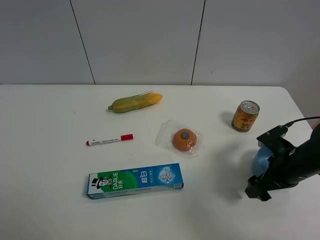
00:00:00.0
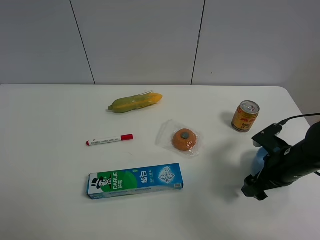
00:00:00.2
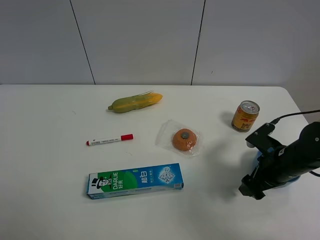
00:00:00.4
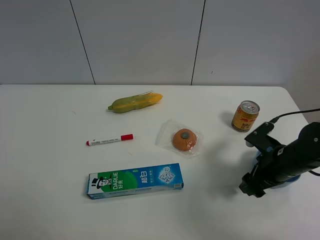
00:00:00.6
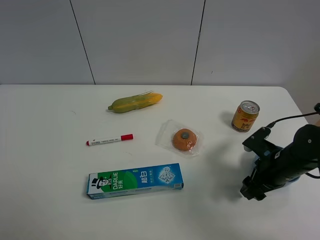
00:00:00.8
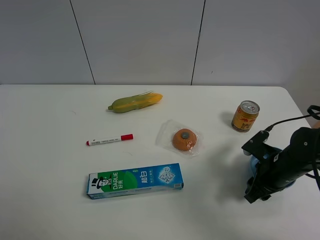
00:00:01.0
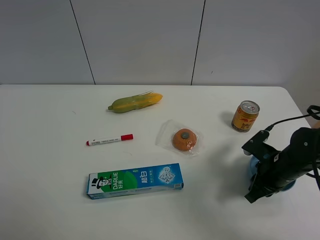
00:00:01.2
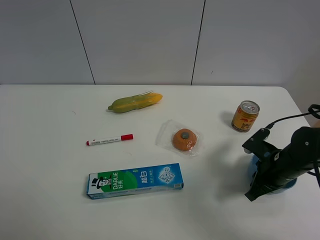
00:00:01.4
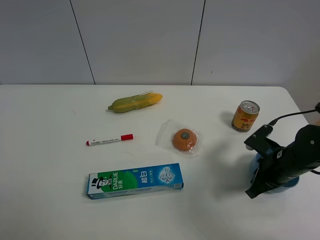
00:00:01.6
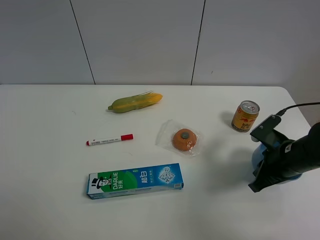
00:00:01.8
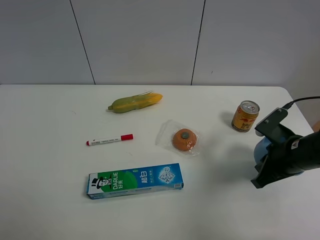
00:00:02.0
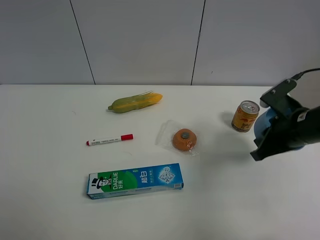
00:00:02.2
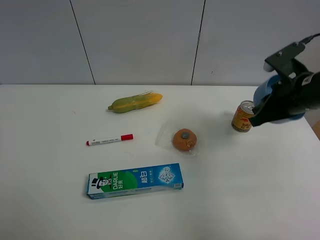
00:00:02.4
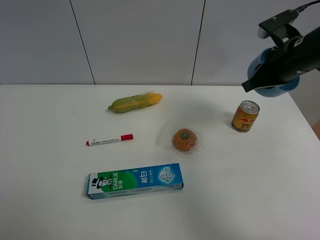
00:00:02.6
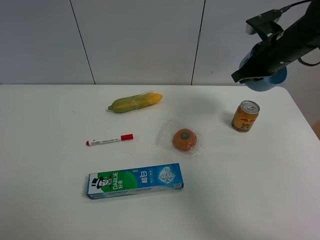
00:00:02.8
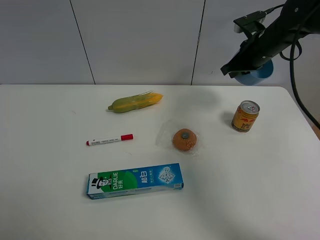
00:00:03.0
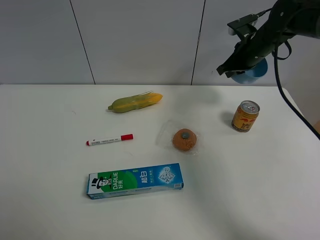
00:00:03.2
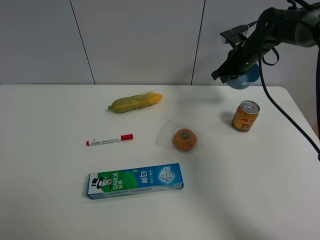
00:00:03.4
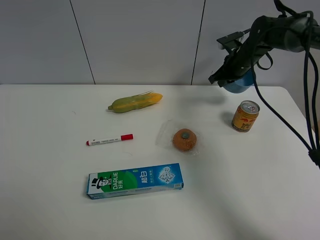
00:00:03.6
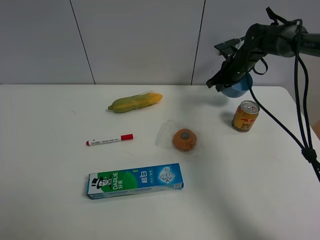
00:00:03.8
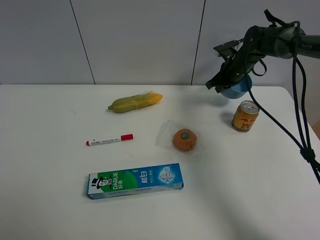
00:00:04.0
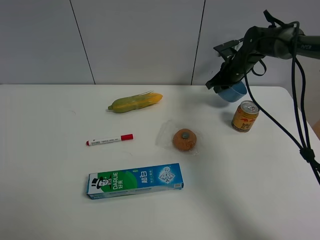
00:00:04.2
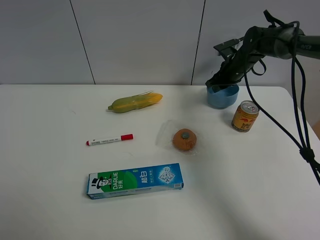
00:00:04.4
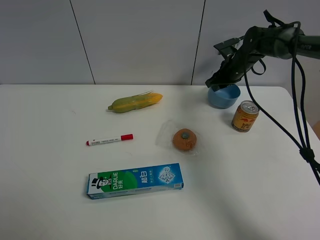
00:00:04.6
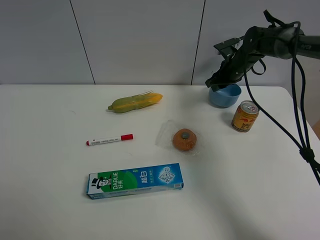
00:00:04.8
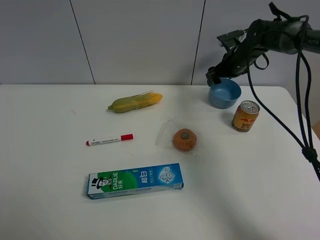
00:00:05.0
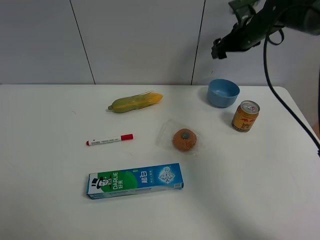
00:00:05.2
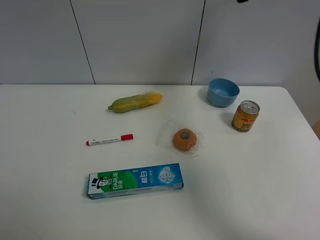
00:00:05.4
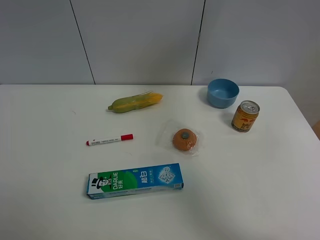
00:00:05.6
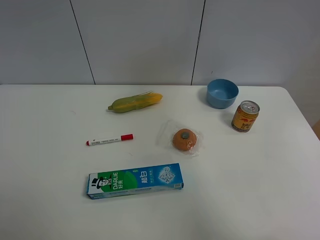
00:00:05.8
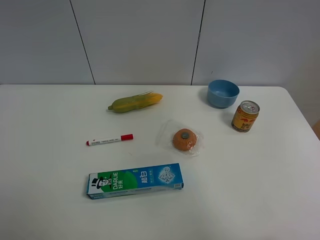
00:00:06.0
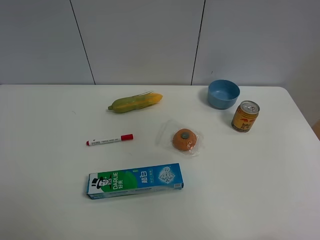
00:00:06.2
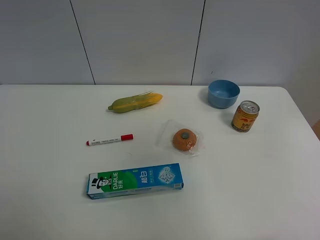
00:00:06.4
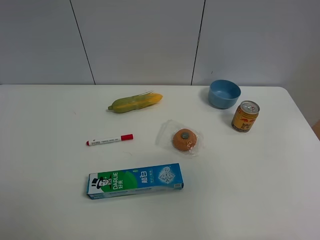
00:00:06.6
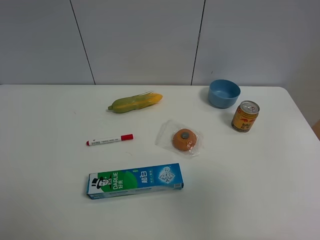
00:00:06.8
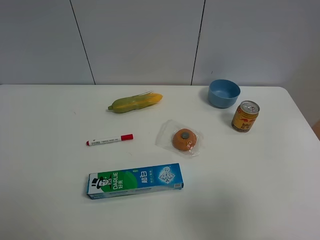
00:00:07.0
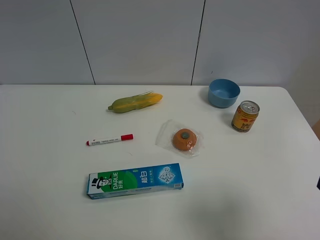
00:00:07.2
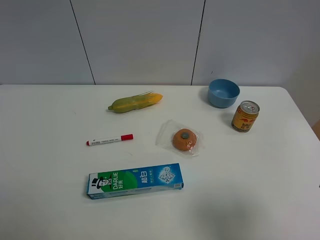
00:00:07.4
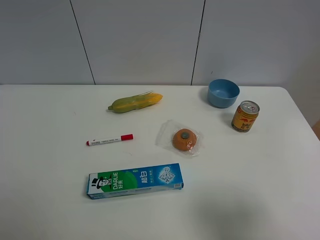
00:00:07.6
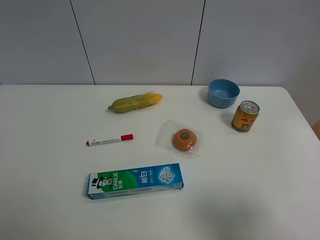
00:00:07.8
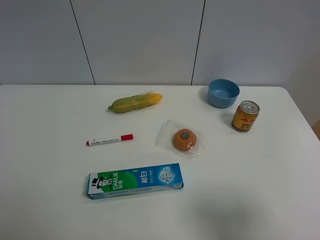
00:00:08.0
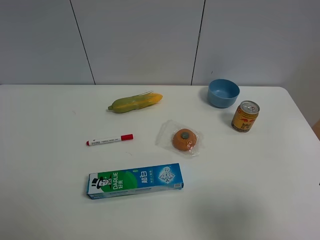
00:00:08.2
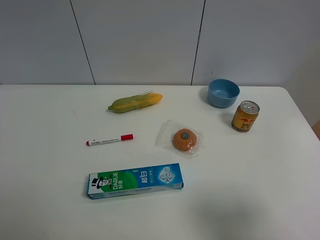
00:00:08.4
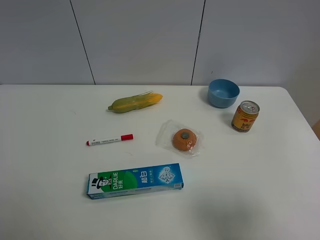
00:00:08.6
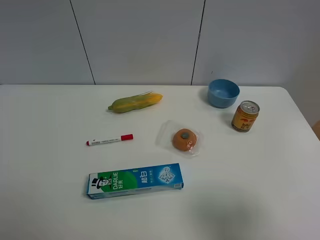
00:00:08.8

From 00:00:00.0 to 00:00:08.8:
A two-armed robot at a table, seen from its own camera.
Task of the whole recording: the gripper move the object.
Step, from 00:00:01.4 to 00:00:04.4: Place the blue bowl on the table with the right gripper.
From 00:00:00.0 to 00:00:01.4: The right gripper closes up.
From 00:00:01.4 to 00:00:03.0: The right gripper is displaced forward and upward by about 25 cm.
From 00:00:03.0 to 00:00:04.4: The right gripper travels downward and forward by some 10 cm.
From 00:00:04.4 to 00:00:05.8: The right gripper shifts about 40 cm upward and backward, and opens up.
From 00:00:05.8 to 00:00:07.4: The right gripper heads downward and backward, covering approximately 40 cm.
From 00:00:07.4 to 00:00:08.8: Neither gripper changes place.

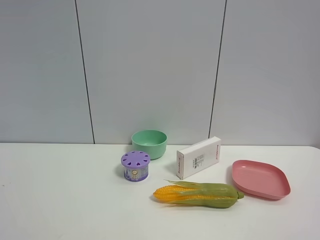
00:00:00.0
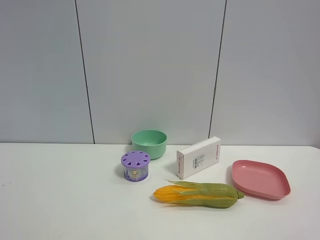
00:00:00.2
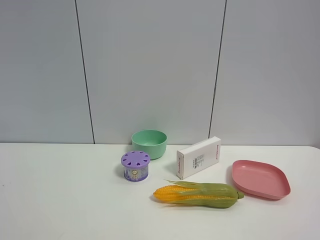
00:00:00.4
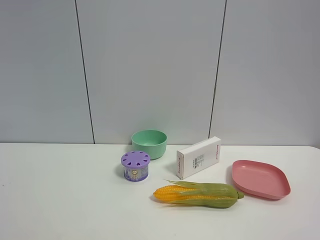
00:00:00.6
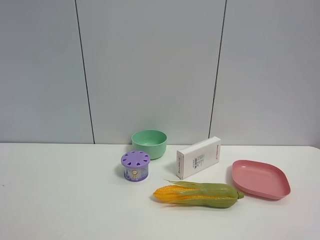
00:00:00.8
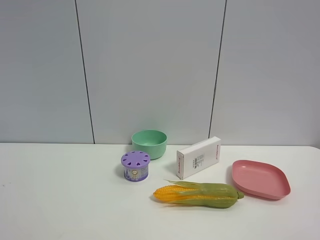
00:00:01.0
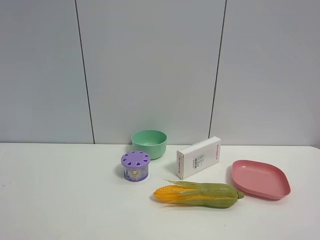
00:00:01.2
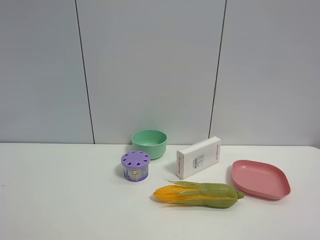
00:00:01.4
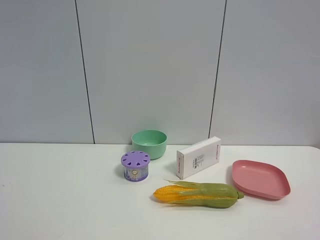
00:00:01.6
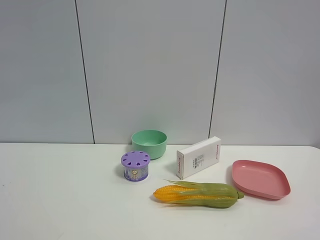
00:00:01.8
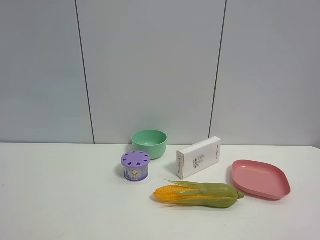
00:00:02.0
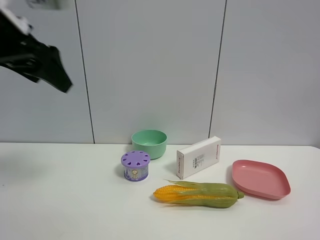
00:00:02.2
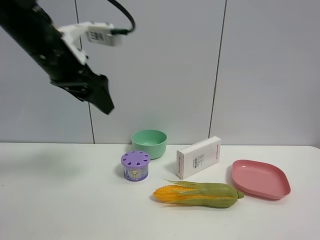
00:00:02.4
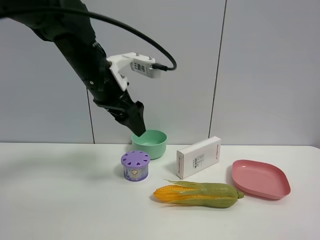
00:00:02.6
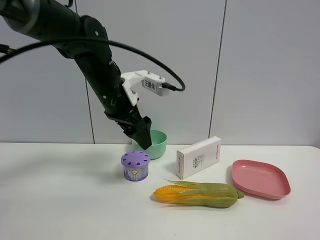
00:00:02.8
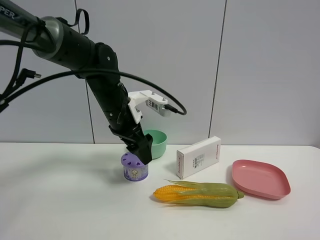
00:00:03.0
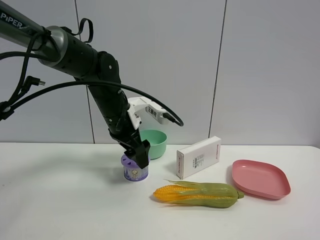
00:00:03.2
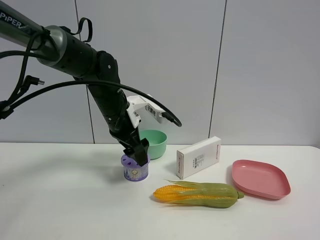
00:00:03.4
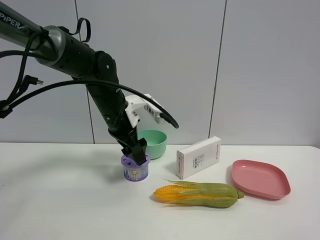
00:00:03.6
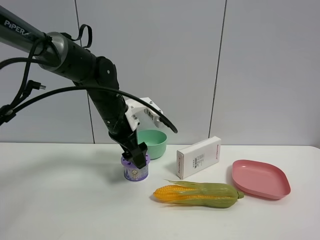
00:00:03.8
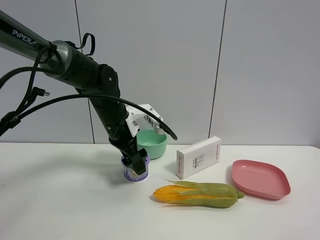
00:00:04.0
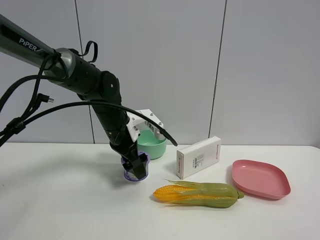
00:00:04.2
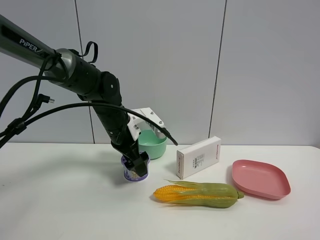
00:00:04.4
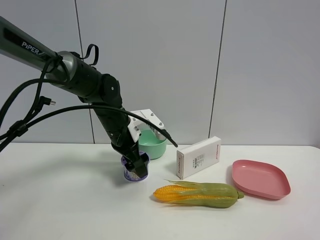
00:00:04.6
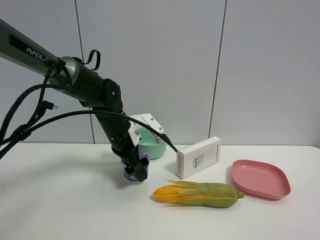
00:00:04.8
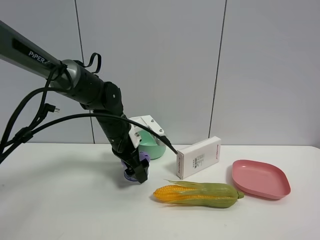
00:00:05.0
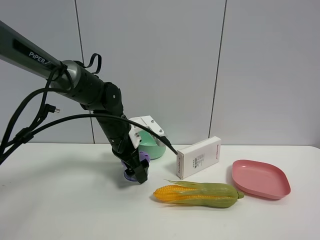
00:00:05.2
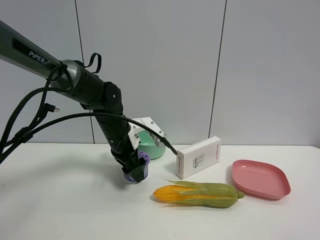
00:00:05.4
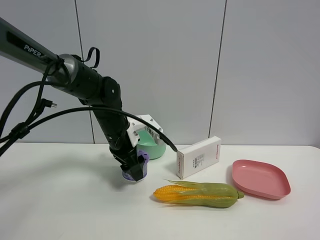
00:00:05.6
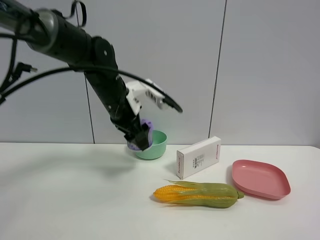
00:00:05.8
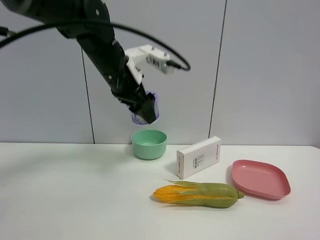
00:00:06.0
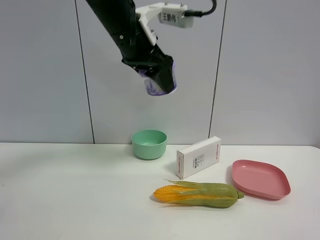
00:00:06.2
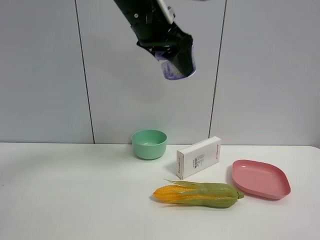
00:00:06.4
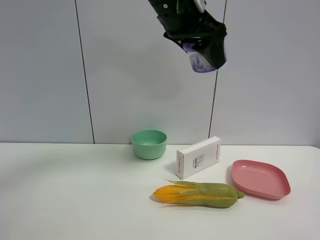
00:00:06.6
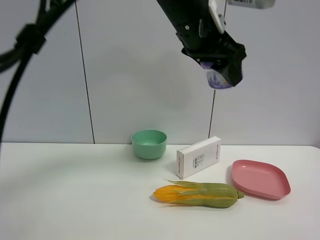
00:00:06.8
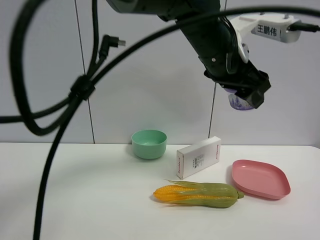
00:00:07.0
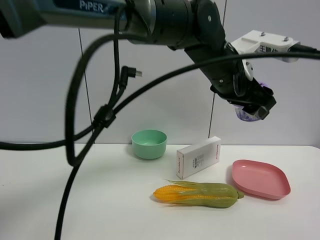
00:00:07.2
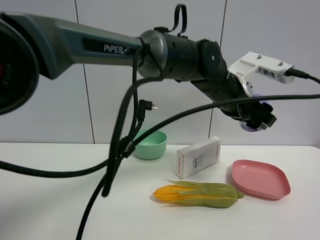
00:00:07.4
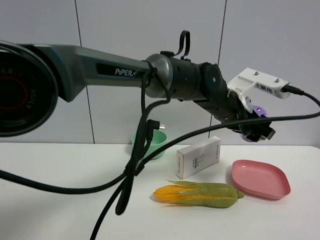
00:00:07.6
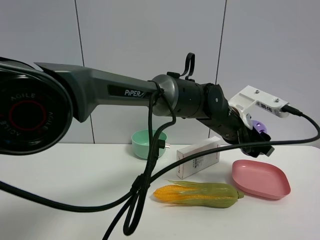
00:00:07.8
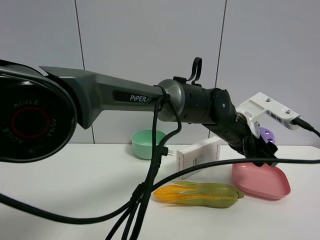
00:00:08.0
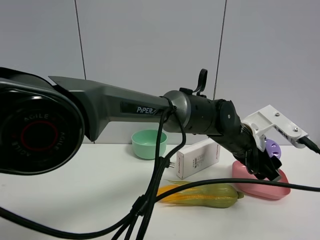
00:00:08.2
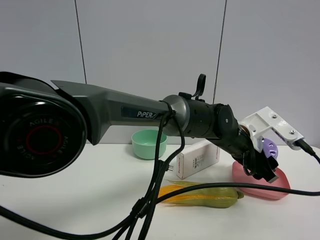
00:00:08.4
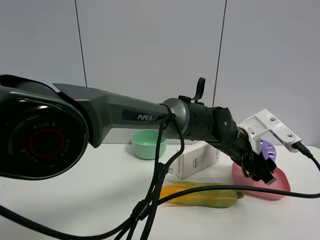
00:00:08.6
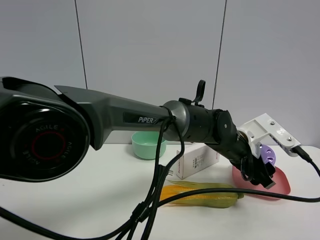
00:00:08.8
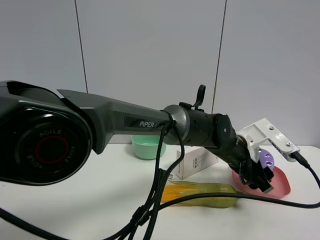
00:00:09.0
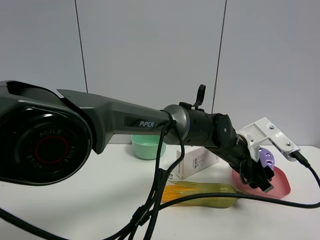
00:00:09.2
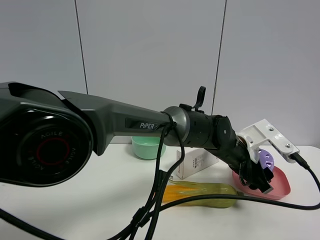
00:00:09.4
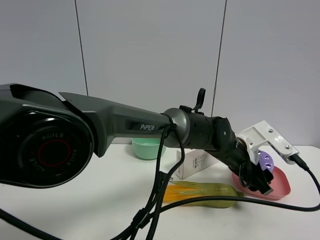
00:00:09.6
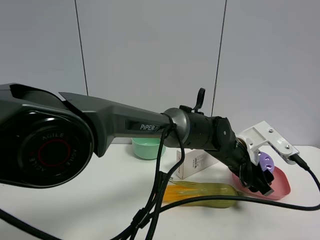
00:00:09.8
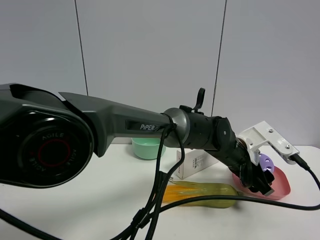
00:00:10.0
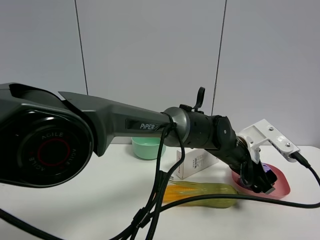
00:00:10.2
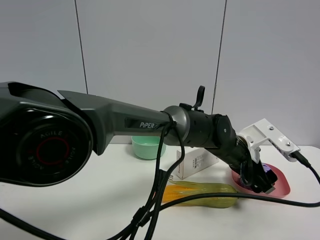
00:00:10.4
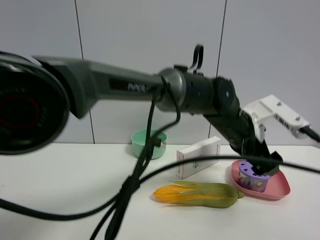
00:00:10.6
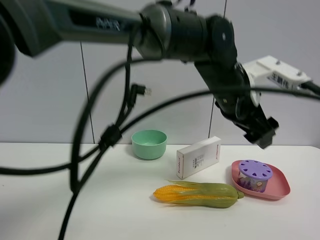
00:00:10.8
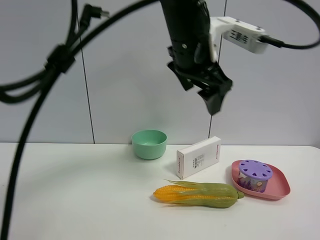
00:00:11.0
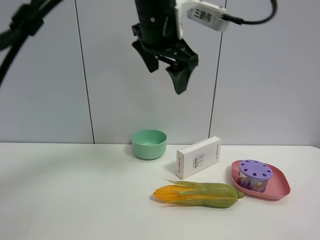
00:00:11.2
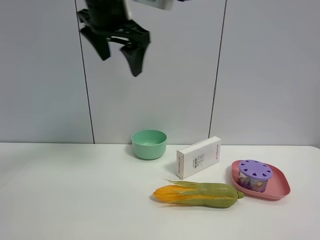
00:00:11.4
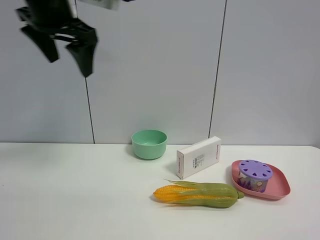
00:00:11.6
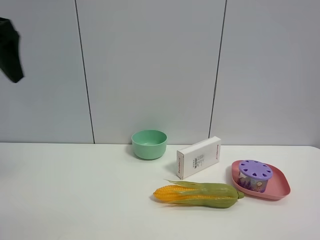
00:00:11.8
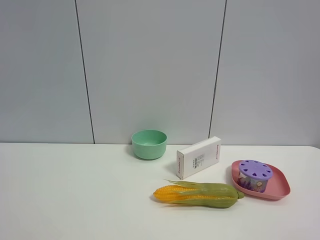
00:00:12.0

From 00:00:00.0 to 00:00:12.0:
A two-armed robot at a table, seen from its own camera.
Task of the whole recording: the gripper move the object.
From 00:00:01.6 to 00:00:03.0: The left gripper heads forward, to the right and downward, covering roughly 50 cm, and opens up.
From 00:00:03.0 to 00:00:04.4: The left gripper opens up.
From 00:00:04.4 to 00:00:06.0: The left gripper goes approximately 15 cm upward, and closes its fingers.
From 00:00:06.0 to 00:00:07.6: The left gripper shifts roughly 25 cm to the right and downward.
From 00:00:07.6 to 00:00:09.0: The left gripper is displaced downward by some 10 cm.
From 00:00:09.0 to 00:00:10.4: The left gripper opens.
From 00:00:10.4 to 00:00:12.0: The left gripper is displaced to the left and upward by some 50 cm.

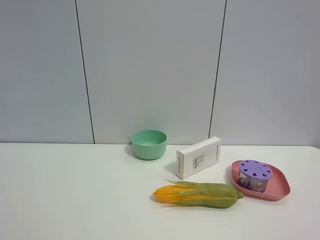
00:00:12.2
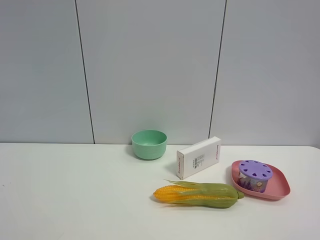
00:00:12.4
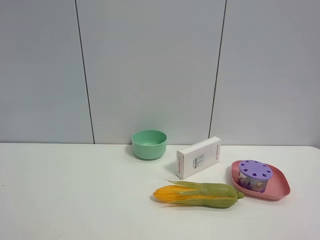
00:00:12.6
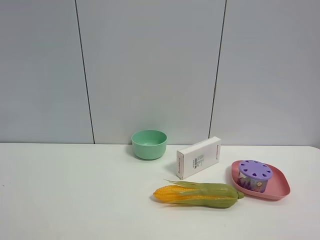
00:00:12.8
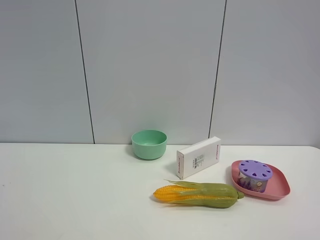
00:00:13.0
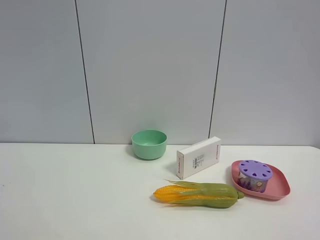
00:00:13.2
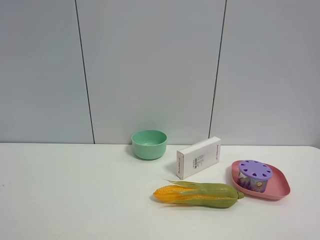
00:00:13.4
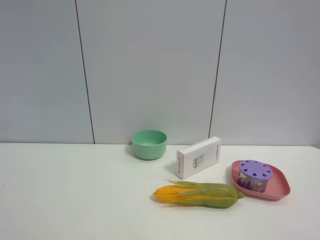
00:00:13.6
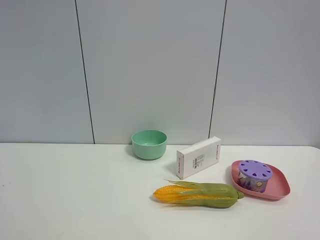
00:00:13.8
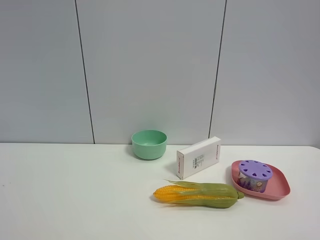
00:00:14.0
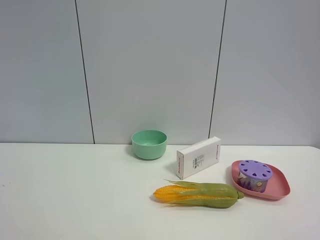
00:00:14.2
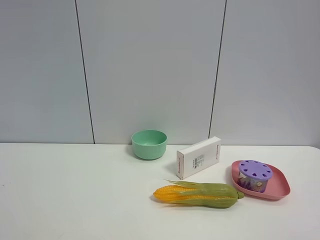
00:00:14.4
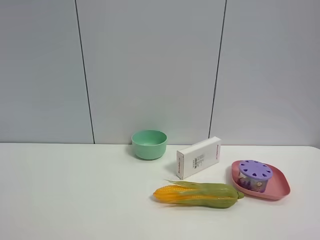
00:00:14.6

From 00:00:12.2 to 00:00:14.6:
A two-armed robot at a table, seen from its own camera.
Task of the whole recording: the gripper move the object.
From 00:00:13.4 to 00:00:14.6: Both grippers stay about where they are.
